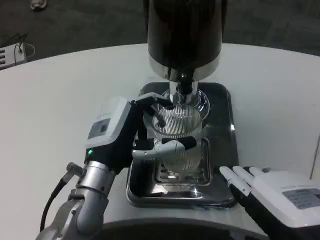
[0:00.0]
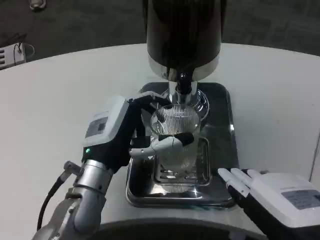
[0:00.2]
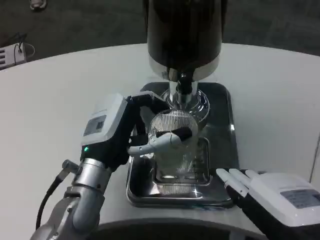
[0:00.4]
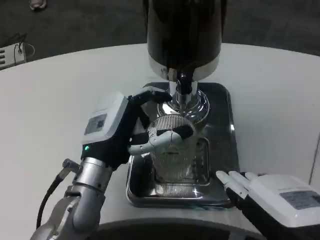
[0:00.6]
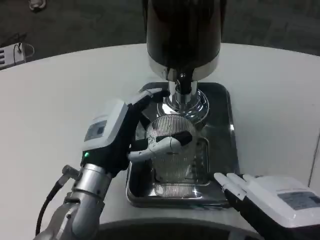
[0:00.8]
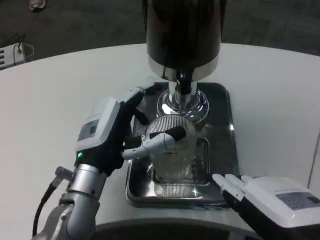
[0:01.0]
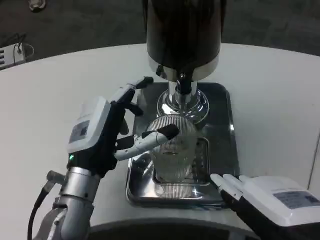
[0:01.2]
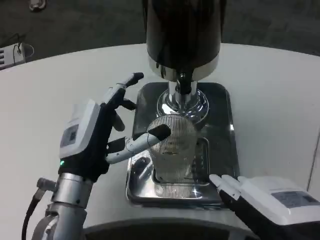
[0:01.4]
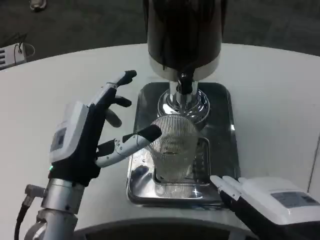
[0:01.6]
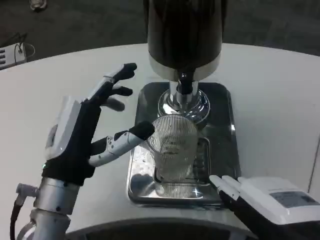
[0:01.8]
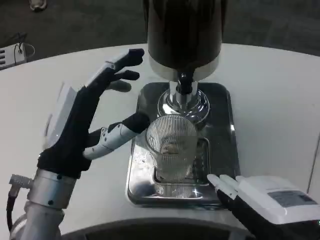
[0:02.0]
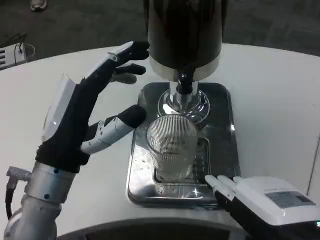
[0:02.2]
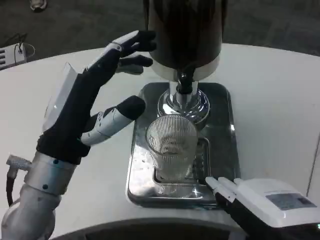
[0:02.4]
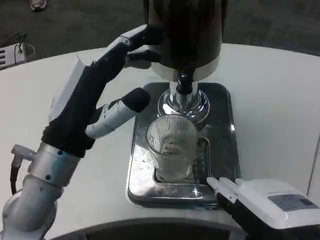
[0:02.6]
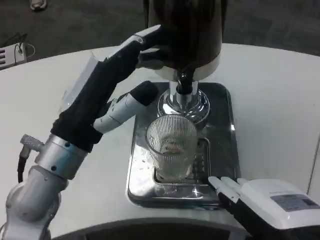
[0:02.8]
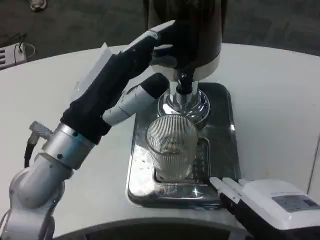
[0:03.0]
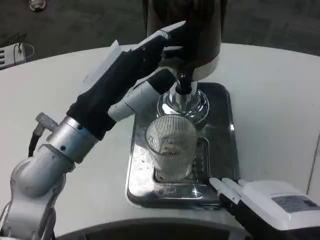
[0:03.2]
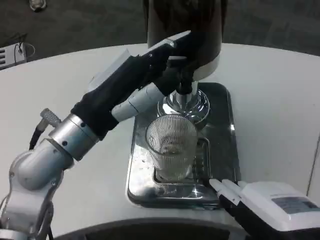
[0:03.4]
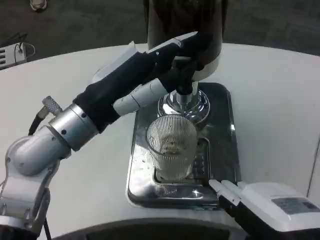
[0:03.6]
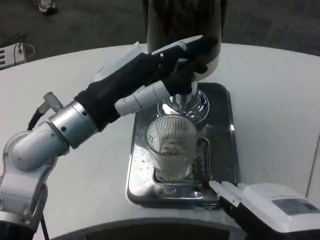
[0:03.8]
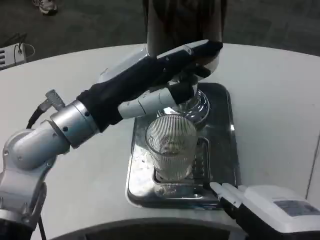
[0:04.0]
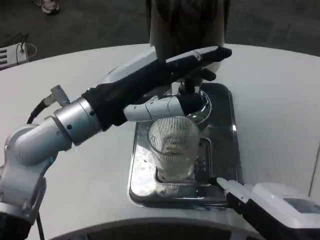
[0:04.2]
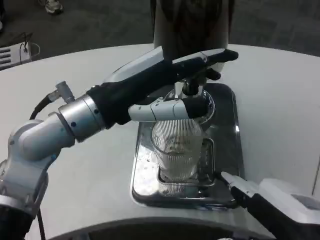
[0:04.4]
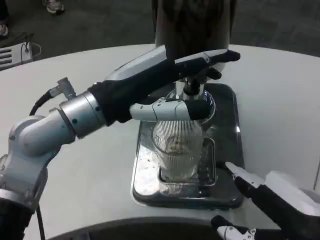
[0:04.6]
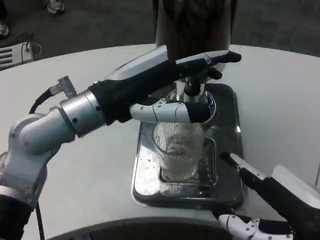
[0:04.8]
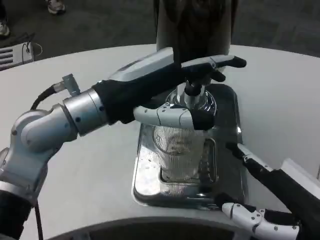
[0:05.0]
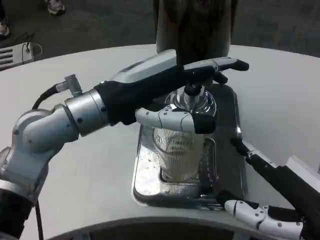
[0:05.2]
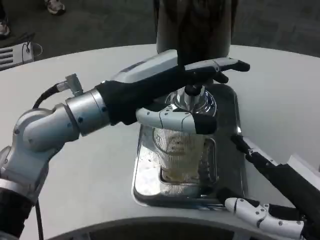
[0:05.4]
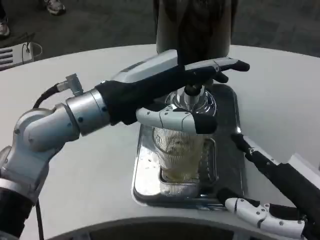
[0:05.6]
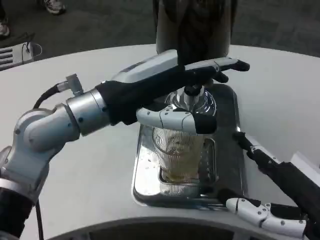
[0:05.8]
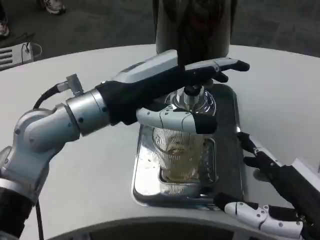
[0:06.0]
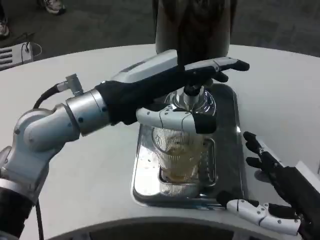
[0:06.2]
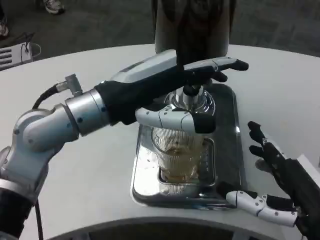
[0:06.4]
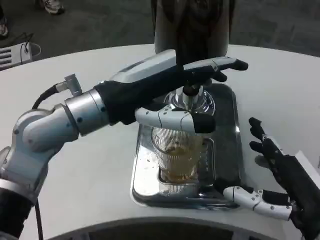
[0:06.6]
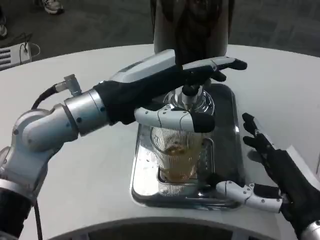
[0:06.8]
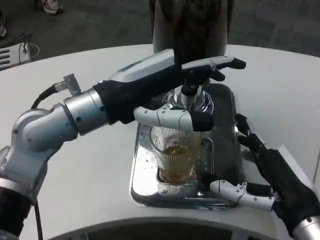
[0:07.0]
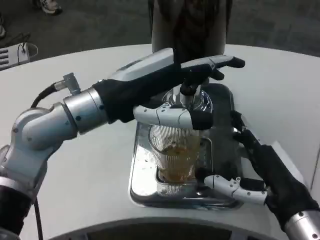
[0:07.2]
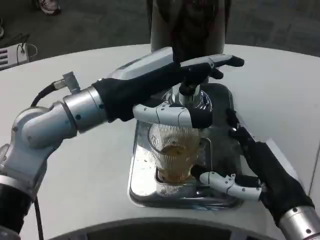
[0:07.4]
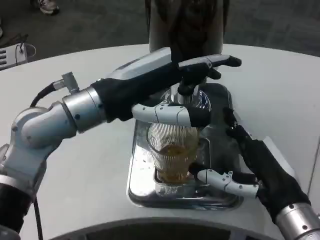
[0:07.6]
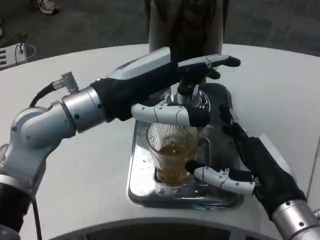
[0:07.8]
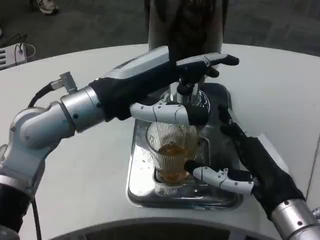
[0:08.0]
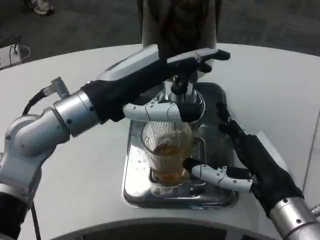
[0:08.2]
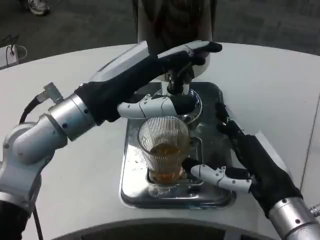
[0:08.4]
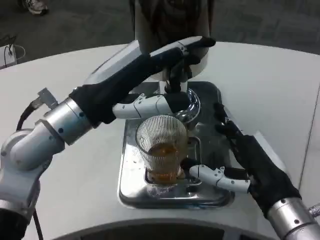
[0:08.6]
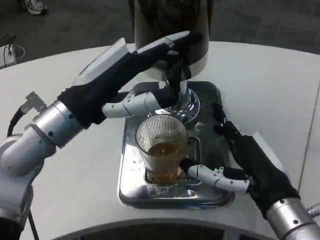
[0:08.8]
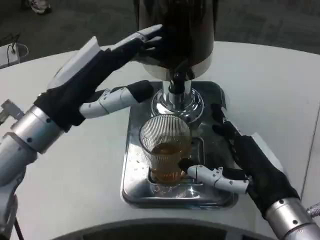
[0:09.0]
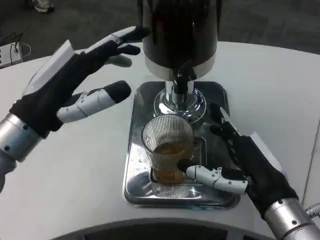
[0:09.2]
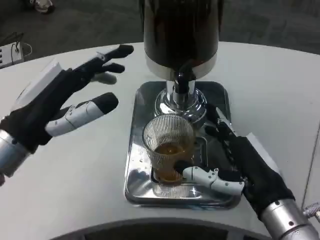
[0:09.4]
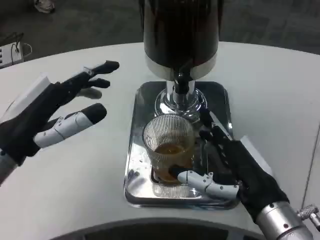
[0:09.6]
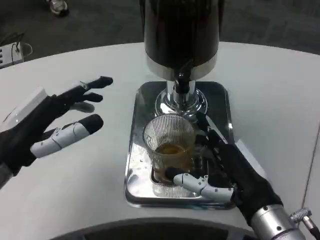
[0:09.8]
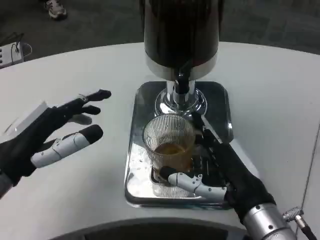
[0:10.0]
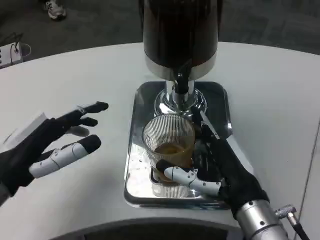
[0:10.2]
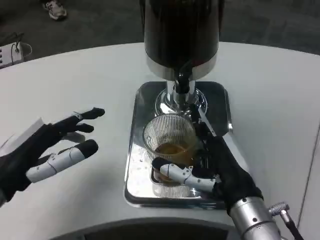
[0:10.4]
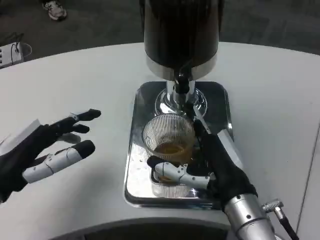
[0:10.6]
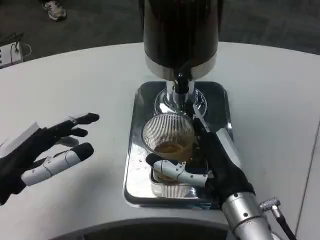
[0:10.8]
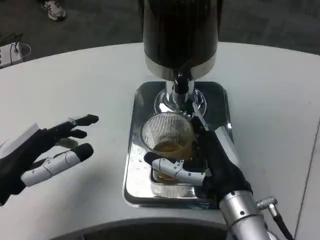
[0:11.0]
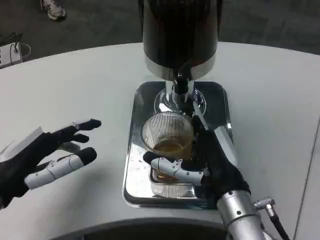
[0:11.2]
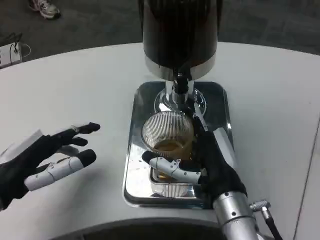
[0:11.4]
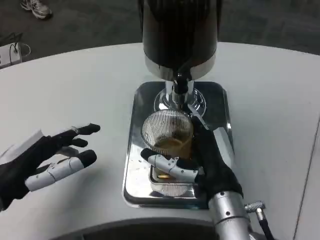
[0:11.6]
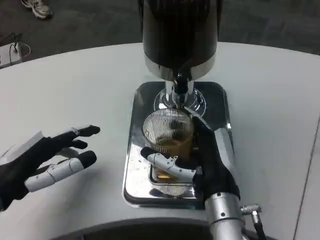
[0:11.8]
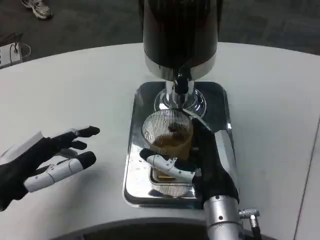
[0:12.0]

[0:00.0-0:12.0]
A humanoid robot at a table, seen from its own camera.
Task of the whole recording: Grasp the cup under the faucet to collect the drink, then remove the cup.
0:01.6 to 0:03.0: The left hand heads upward, covering about 10 cm.
0:03.0 to 0:04.4: The left hand ends up some 5 cm from where it was.
0:06.0 to 0:07.6: The right hand travels forward by some 10 cm.
0:07.6 to 0:09.0: The left hand changes place by some 5 cm.
0:09.0 to 0:10.4: The left hand moves downward and to the left, roughly 10 cm, while the right hand ends up some 5 cm from where it was.
0:10.4 to 0:12.0: The right hand ends up some 5 cm from where it was.

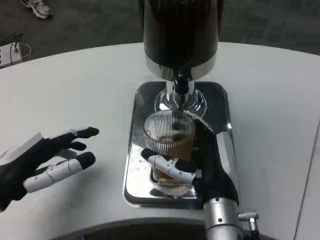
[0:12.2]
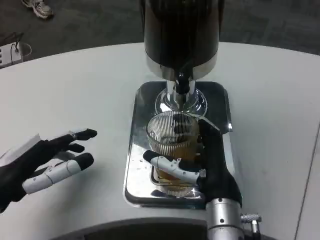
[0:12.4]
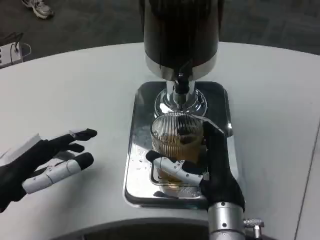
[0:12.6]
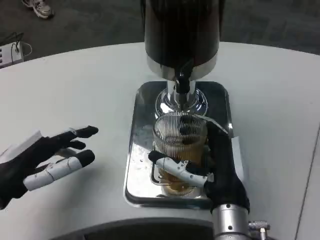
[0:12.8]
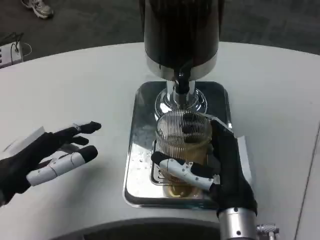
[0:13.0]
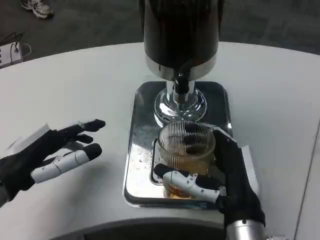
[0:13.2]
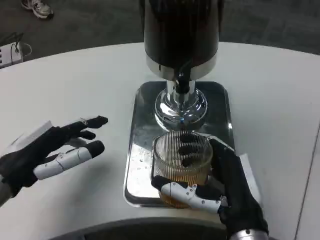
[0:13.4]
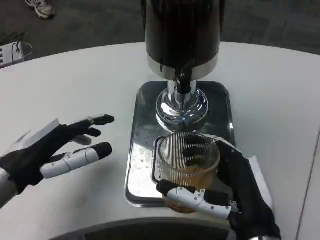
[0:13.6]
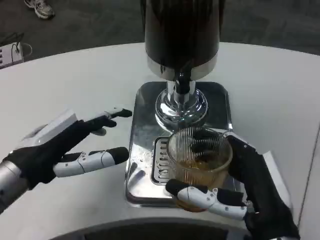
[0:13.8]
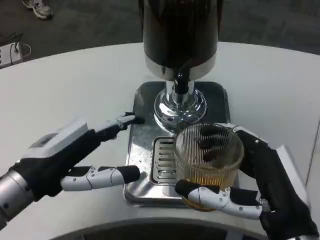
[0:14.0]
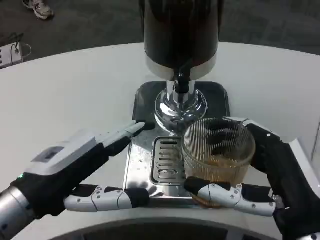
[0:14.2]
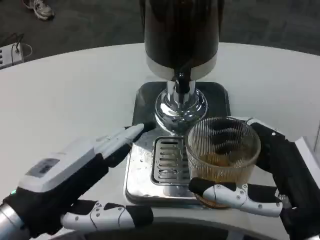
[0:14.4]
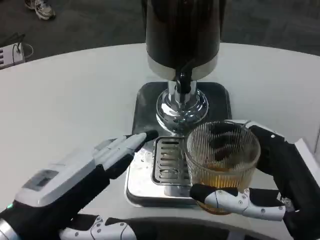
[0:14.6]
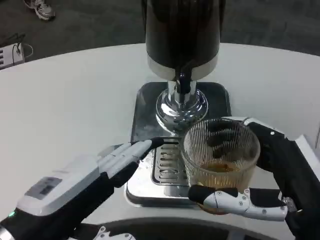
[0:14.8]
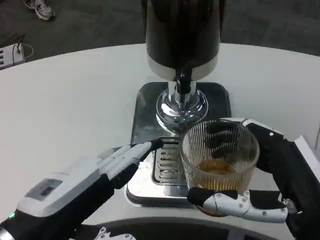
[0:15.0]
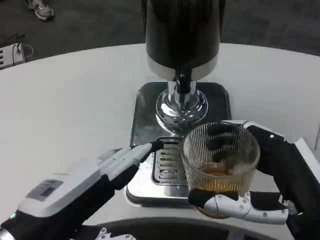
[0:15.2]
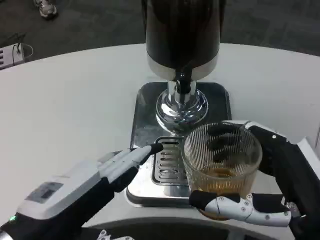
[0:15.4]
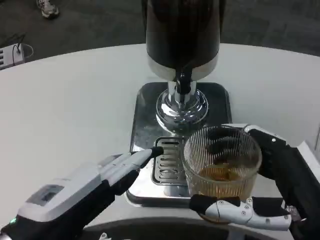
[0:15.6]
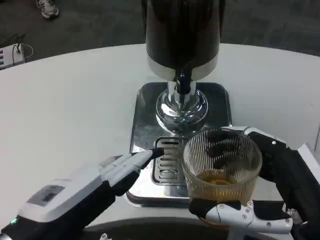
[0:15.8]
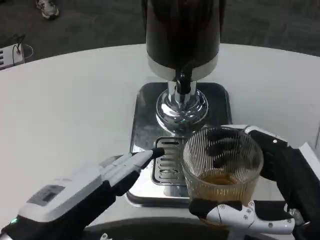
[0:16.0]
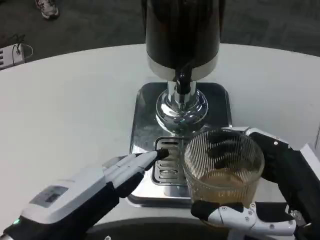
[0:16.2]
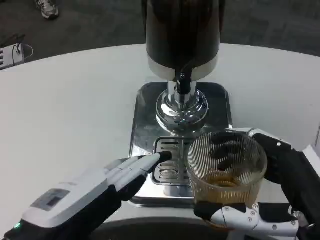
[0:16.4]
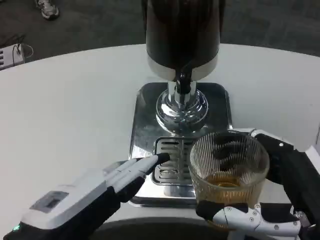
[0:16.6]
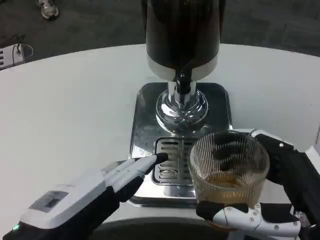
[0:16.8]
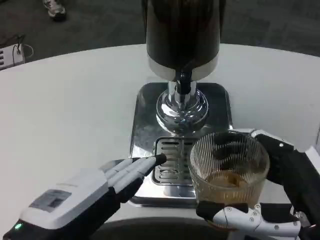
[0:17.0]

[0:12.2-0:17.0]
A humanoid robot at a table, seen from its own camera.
Task of the whole recording: Grasp the cup under the faucet to collect the drink, then remove the cup.
0:12.2 to 0:13.8: The right hand is displaced backward and to the right by roughly 10 cm.
0:13.8 to 0:15.4: The left hand goes approximately 10 cm backward; the right hand moves approximately 5 cm.
0:15.4 to 0:17.0: The hands make only small movements.

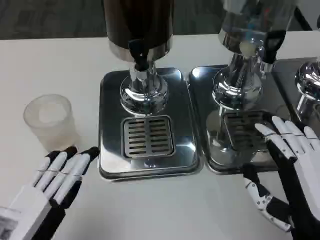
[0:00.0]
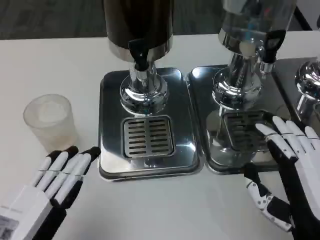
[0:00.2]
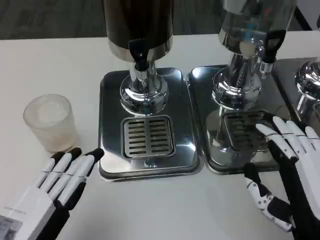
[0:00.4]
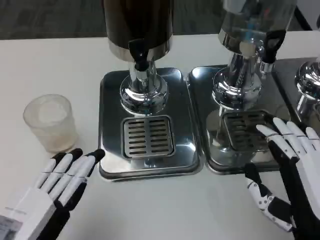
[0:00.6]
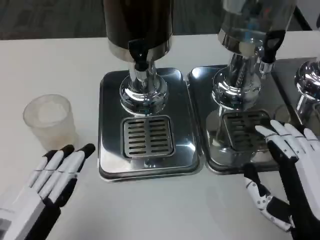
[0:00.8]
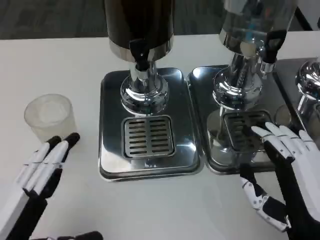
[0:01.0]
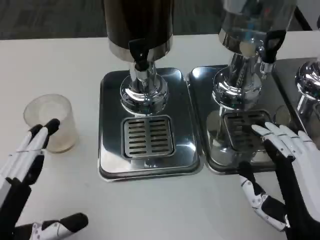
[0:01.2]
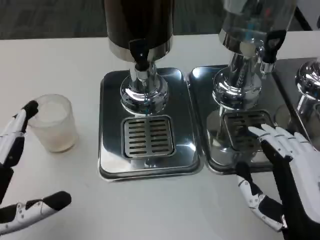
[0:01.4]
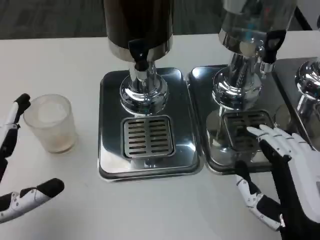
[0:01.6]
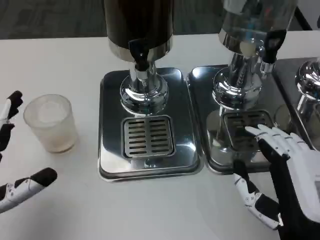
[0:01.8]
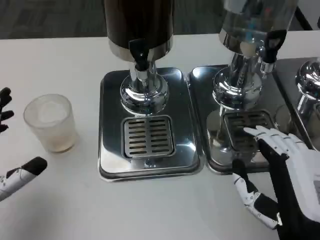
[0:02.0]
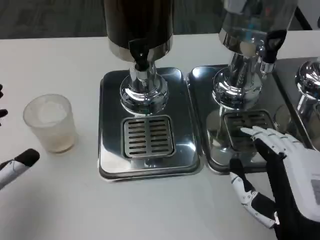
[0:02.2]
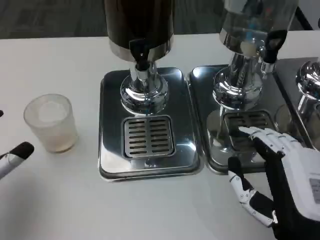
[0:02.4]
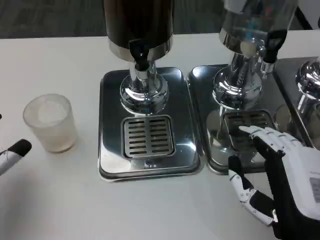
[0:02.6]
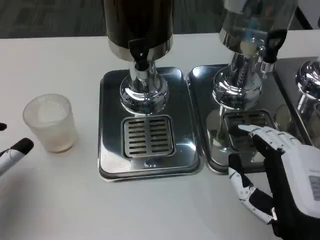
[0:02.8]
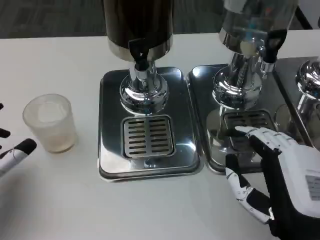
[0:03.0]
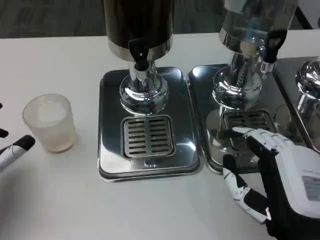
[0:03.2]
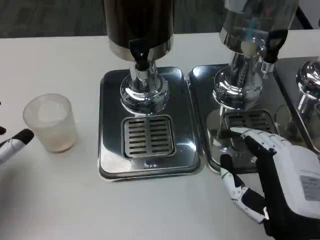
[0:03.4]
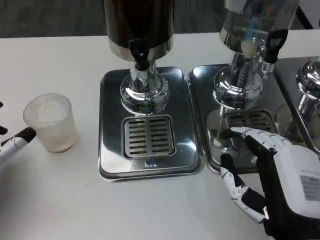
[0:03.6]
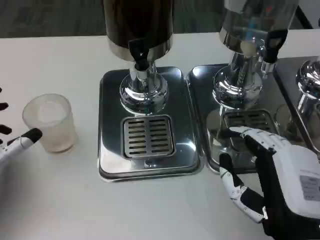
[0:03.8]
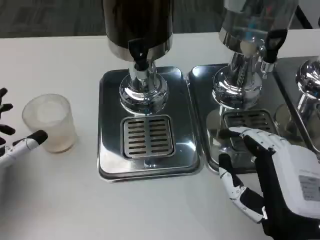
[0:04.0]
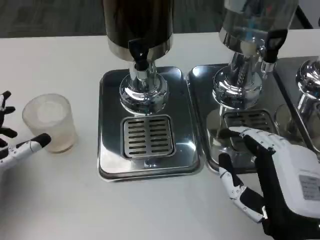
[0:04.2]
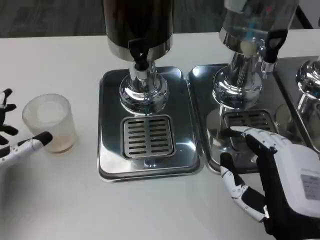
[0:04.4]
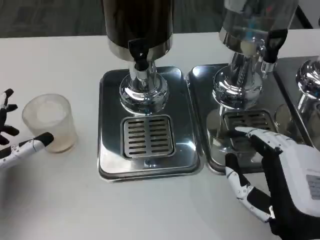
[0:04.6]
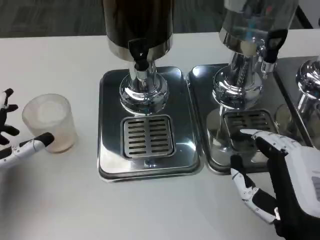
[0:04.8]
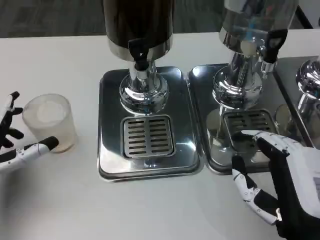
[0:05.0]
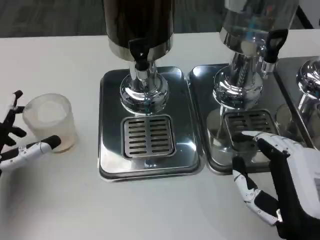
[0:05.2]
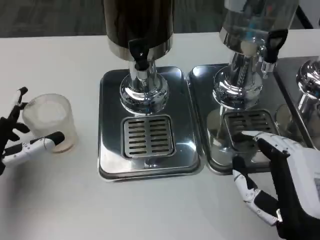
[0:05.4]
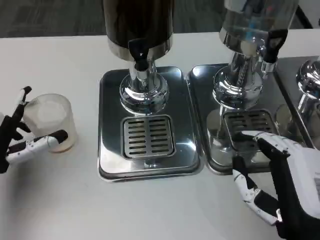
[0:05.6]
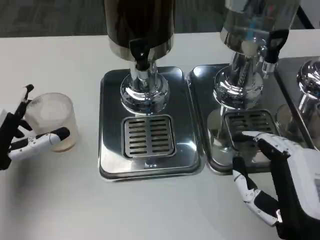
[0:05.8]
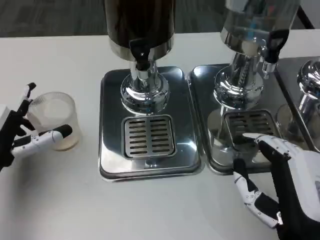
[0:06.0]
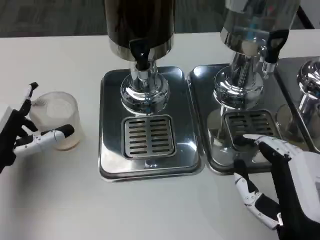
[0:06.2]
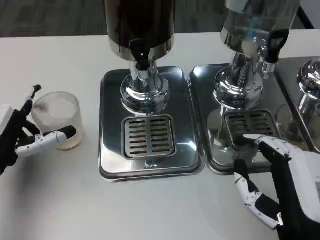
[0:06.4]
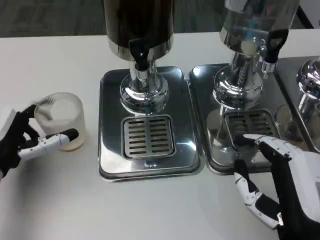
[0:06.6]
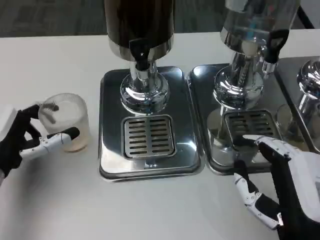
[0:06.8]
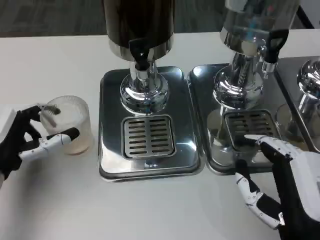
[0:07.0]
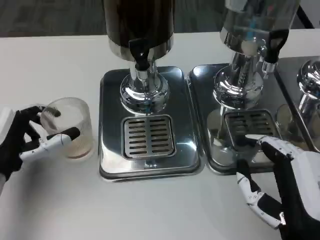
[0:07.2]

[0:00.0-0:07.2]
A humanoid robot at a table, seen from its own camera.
Task of the whole recording: Grasp the cup under the faucet to collect the drink, then remove the cup.
0:01.4 to 0:02.8: The left hand is displaced forward by roughly 5 cm.
0:02.8 to 0:04.4: The hands stay close to where they were, moving slightly.
0:04.4 to 0:07.2: The hands stay close to where they were, moving slightly.
